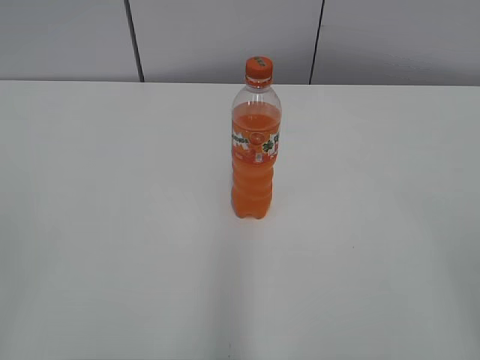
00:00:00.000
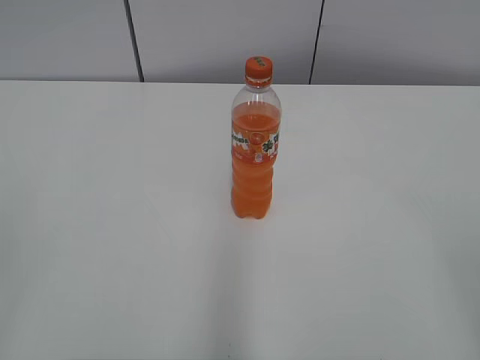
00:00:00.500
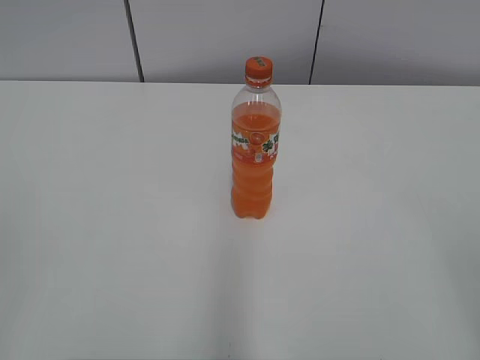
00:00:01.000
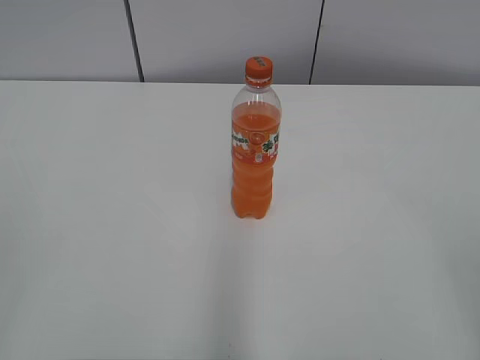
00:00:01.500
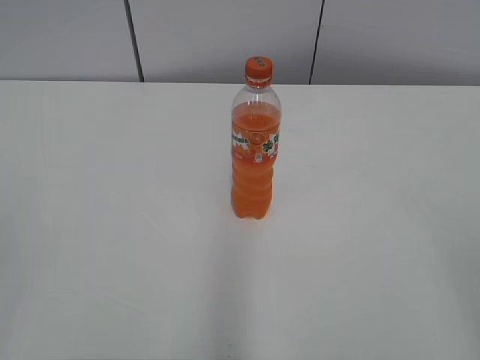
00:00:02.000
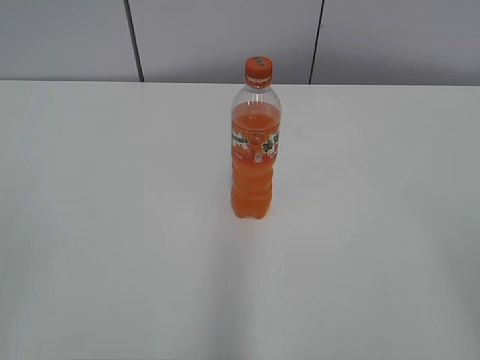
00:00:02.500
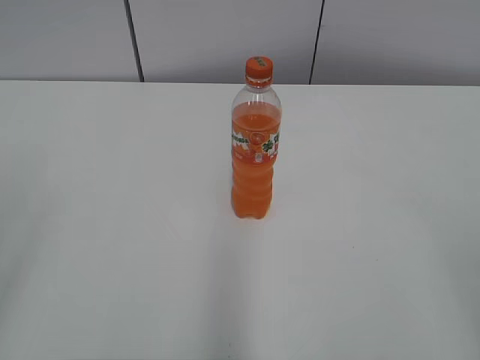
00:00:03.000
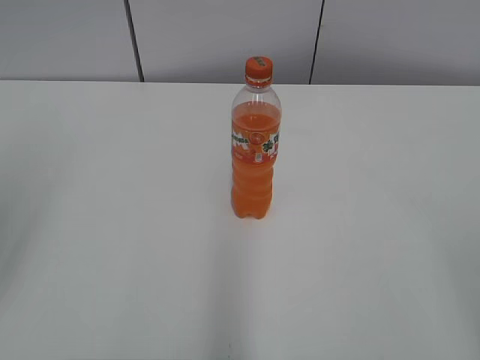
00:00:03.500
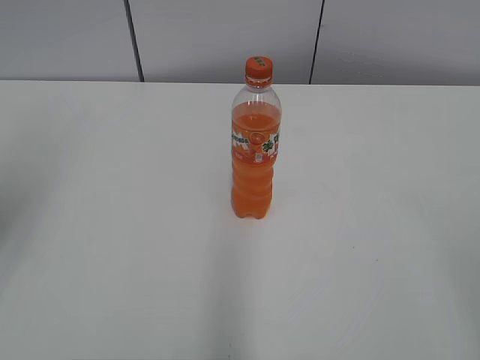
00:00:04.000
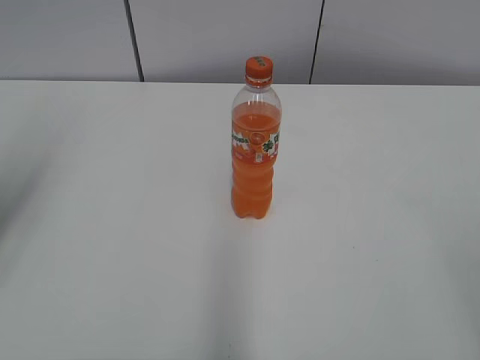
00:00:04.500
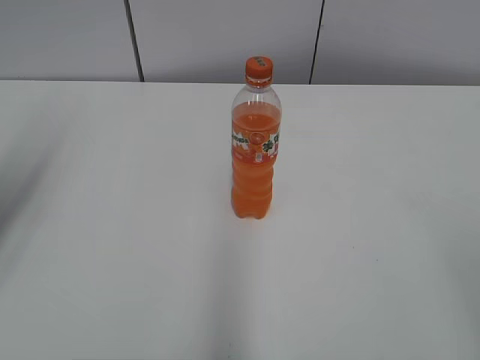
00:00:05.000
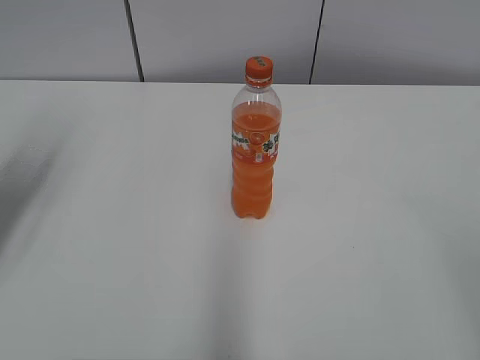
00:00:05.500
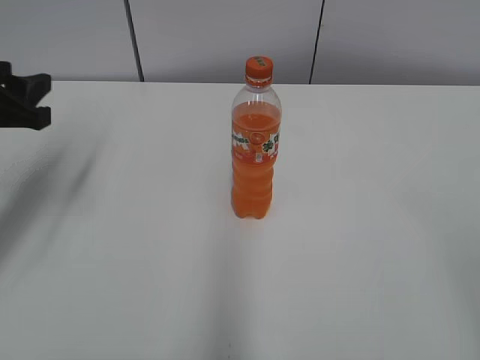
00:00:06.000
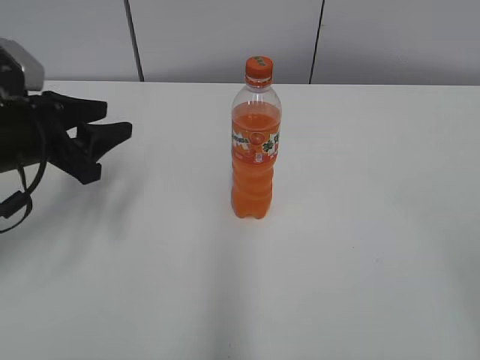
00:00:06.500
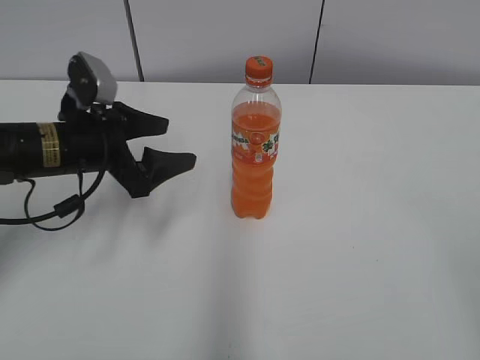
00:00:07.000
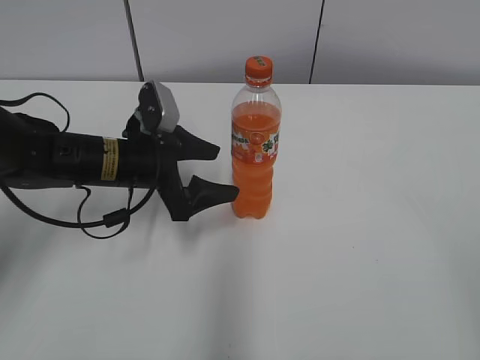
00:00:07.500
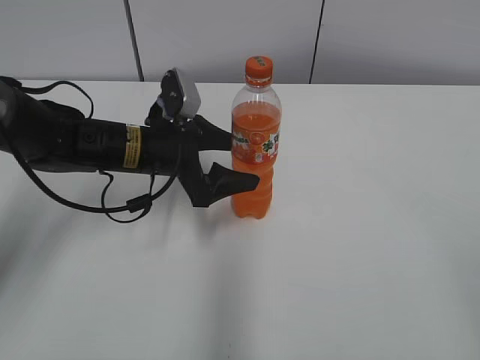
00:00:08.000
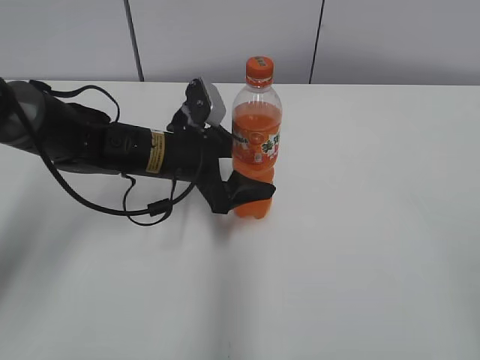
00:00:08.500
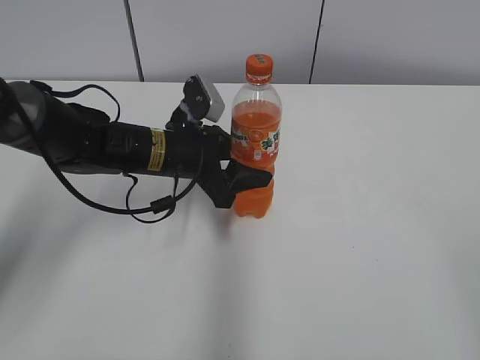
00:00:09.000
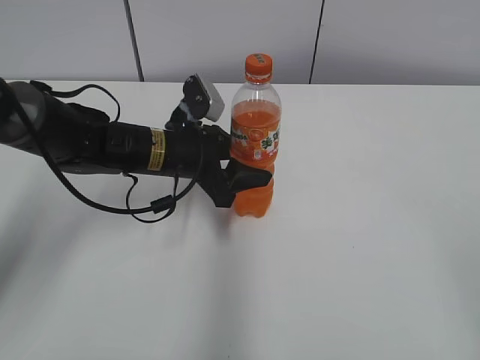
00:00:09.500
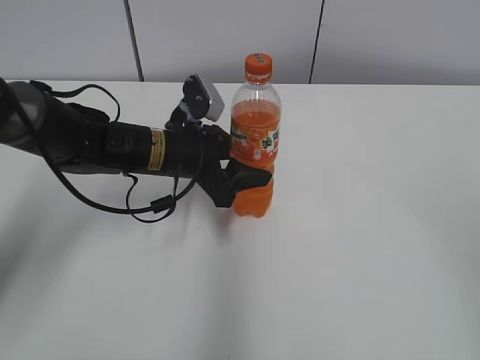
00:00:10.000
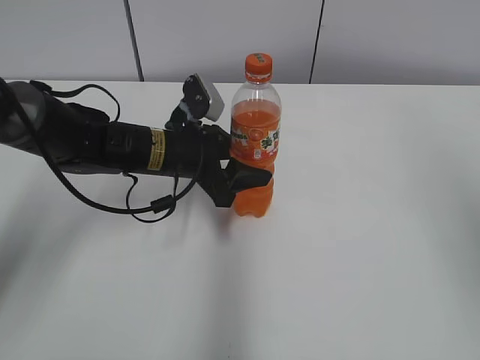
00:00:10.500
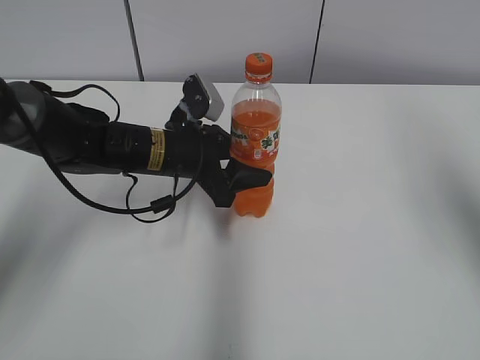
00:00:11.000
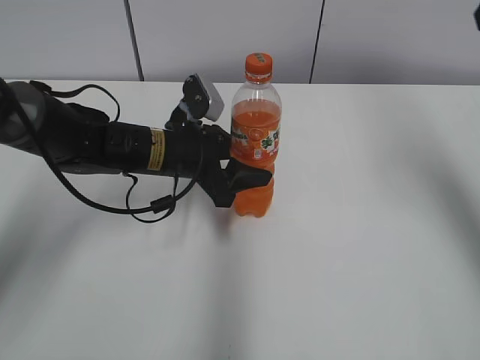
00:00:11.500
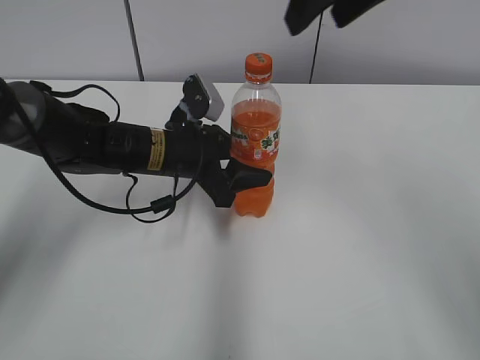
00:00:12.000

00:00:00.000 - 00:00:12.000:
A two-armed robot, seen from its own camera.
Step, 00:00:00.000 - 00:00:09.000: Grab the Mirinda with the left hand.
00:00:04.000 - 00:00:06.000: The left gripper travels downward and forward by about 15 cm.
00:00:06.000 - 00:00:08.000: The left gripper is displaced to the right and downward by about 20 cm, and opens its fingers.
00:00:08.000 - 00:00:10.000: The right gripper heads upward, covering about 5 cm; the left gripper closes its fingers.
00:00:10.000 - 00:00:12.000: The right gripper moves forward and to the left, about 35 cm.

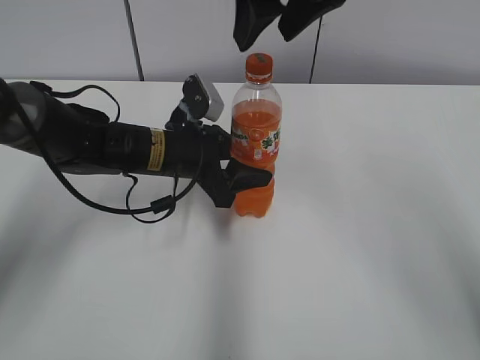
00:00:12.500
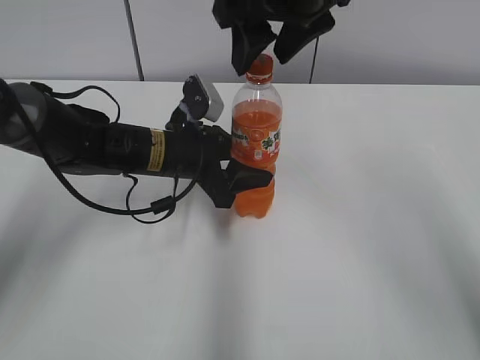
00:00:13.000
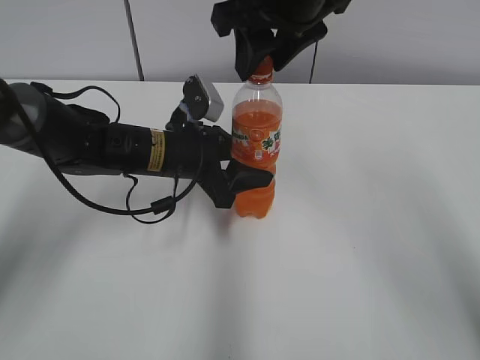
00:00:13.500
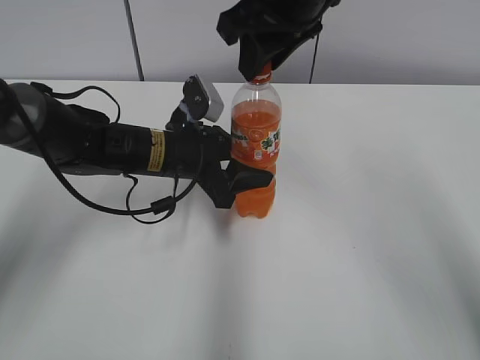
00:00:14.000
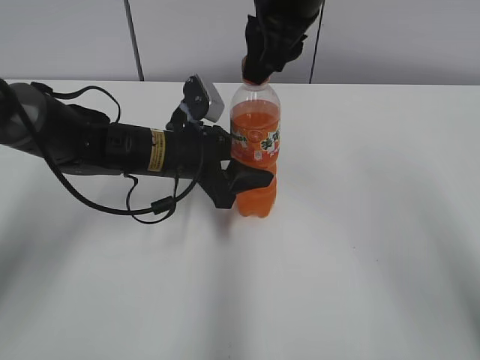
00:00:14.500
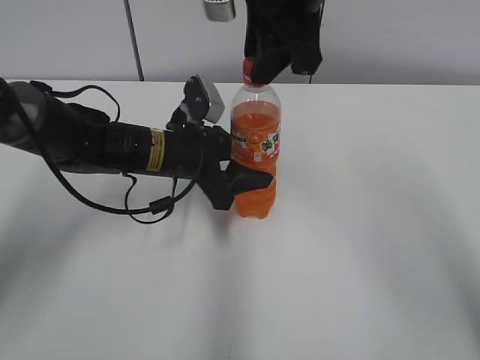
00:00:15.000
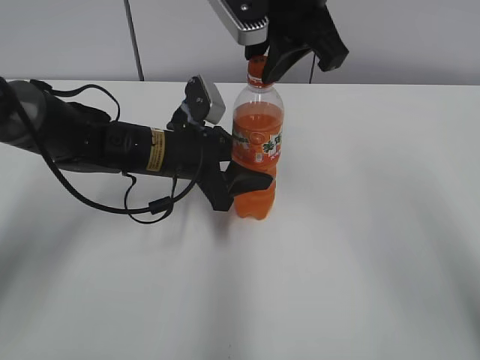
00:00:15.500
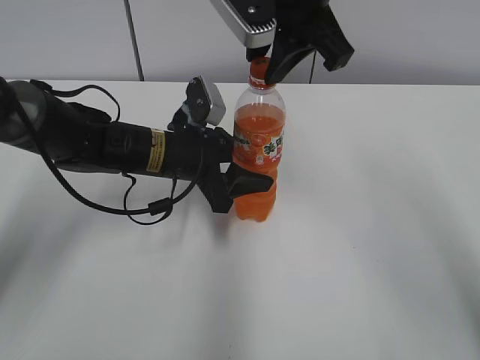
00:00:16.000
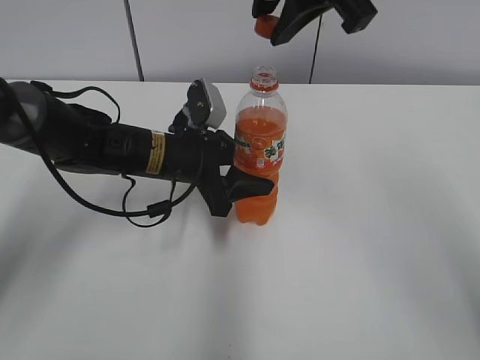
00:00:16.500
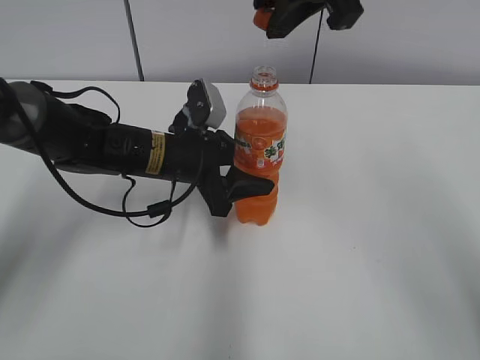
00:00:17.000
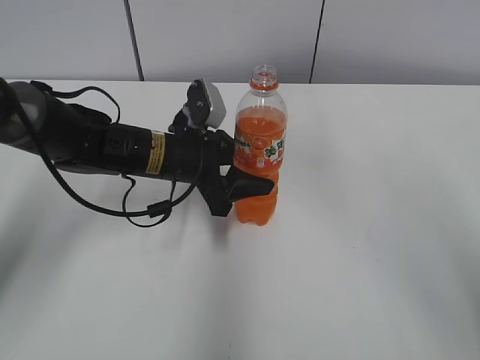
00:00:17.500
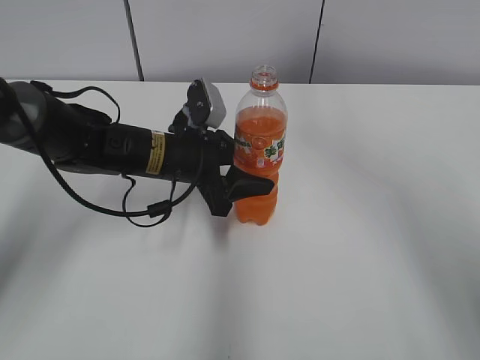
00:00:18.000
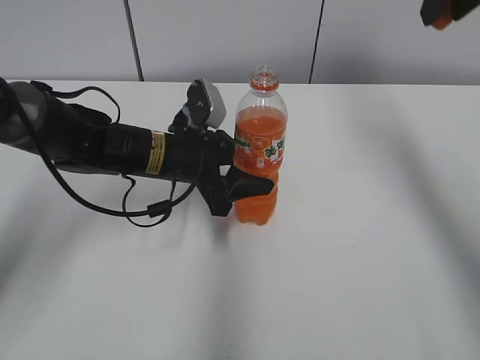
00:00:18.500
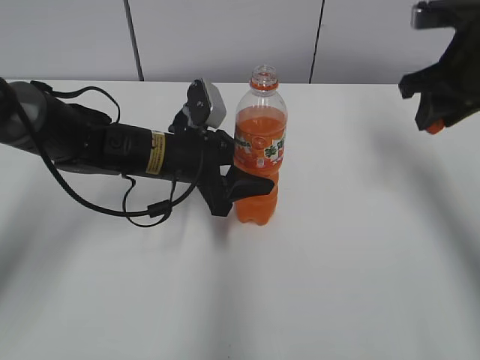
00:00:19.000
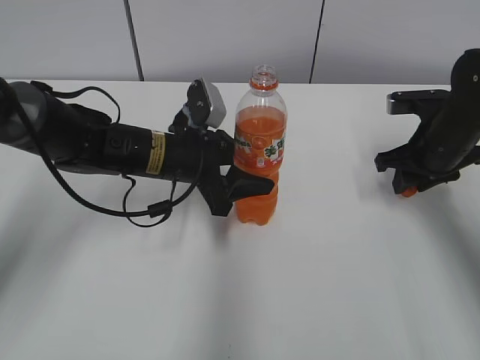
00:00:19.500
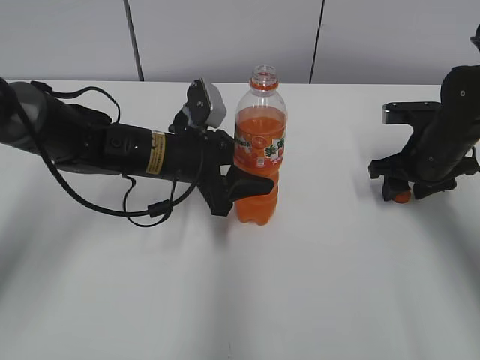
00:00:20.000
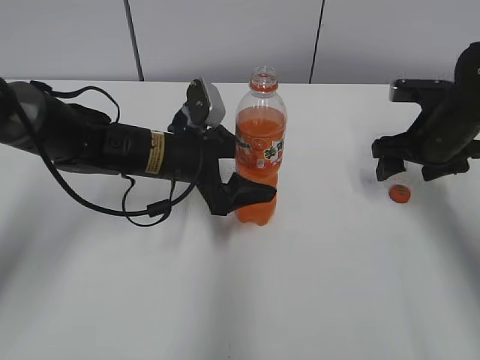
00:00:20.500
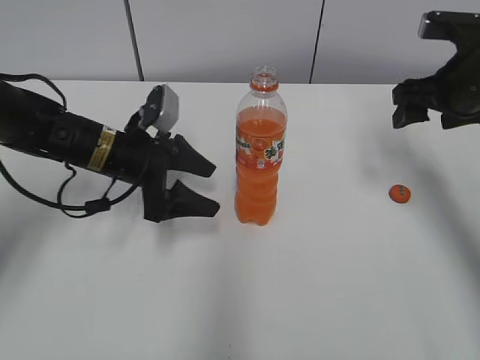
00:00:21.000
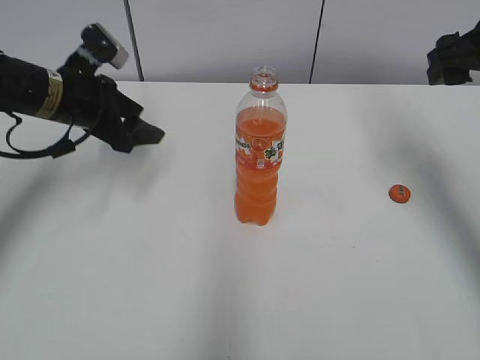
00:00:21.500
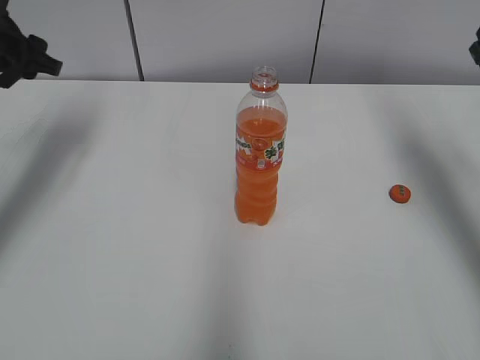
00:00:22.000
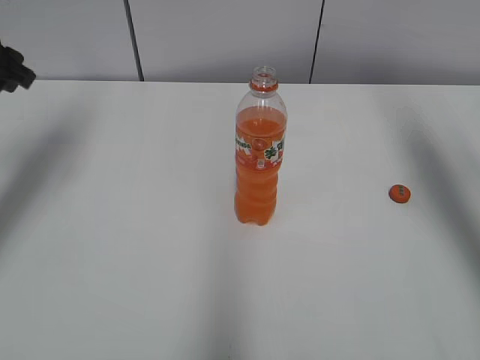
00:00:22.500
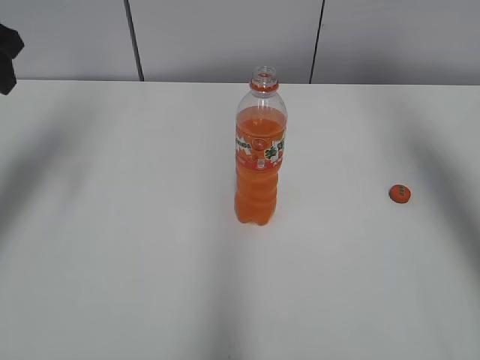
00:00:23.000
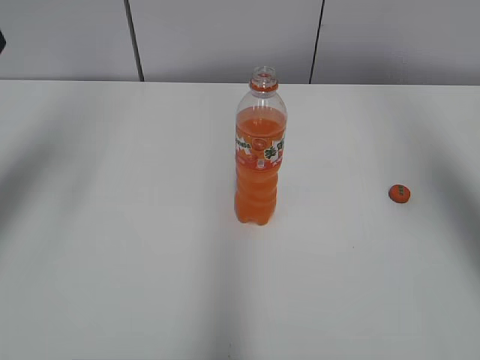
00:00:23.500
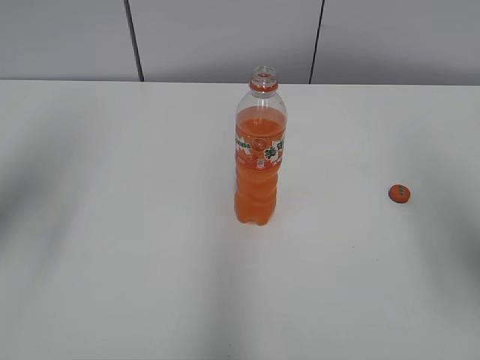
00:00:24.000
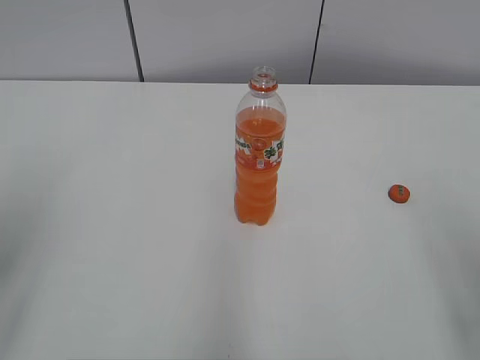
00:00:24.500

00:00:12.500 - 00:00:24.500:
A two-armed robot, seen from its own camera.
Step, 00:00:16.500 - 00:00:19.500: Place the bottle cap on the right.
00:00:12.500 - 00:00:14.500: The right gripper closes up.
00:00:14.500 - 00:00:16.500: The right gripper ends up roughly 5 cm from where it was.
00:00:16.500 - 00:00:18.500: The right gripper goes some 15 cm to the right.
00:00:18.500 - 00:00:20.500: The left gripper opens. The right gripper heads downward, covering roughly 25 cm, and opens up.
00:00:20.500 - 00:00:22.500: The right gripper travels upward by some 20 cm, while the left gripper goes about 25 cm to the left and upward.
00:00:22.500 - 00:00:24.500: Both grippers travel together backward, about 25 cm.
